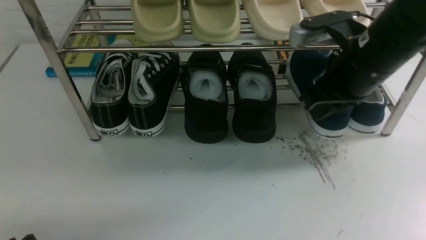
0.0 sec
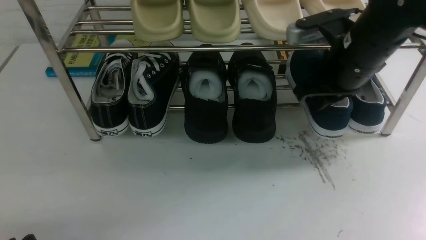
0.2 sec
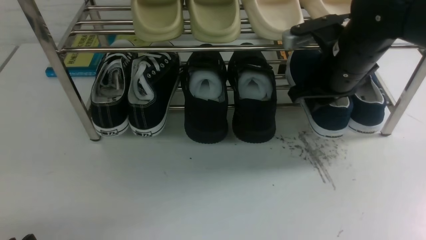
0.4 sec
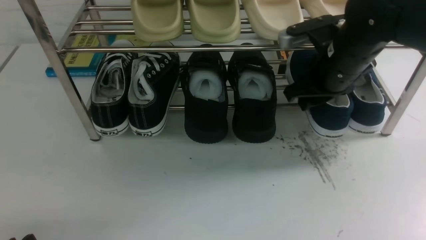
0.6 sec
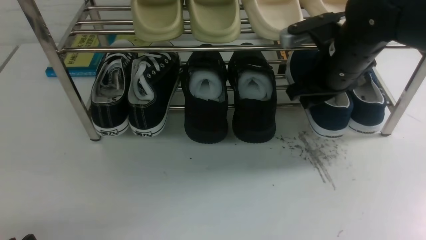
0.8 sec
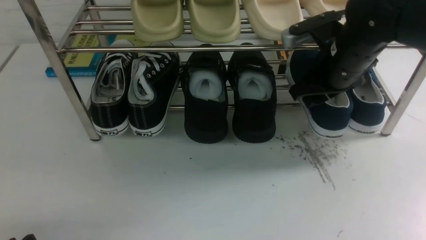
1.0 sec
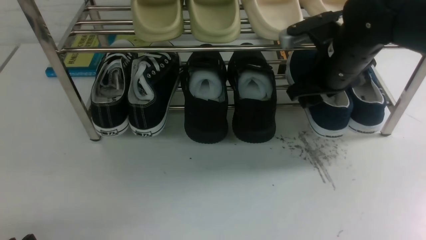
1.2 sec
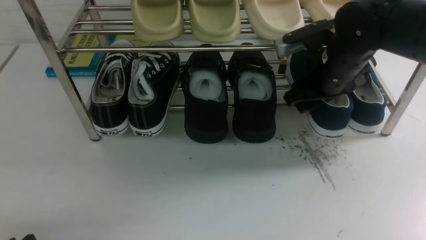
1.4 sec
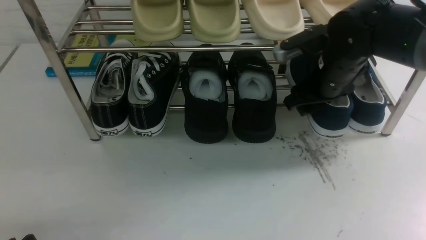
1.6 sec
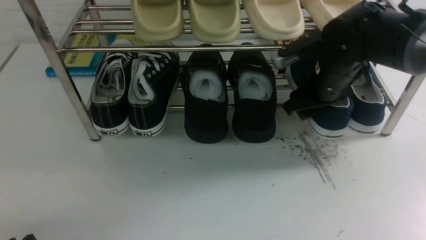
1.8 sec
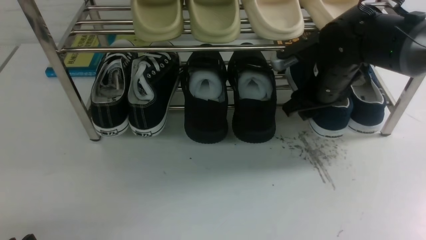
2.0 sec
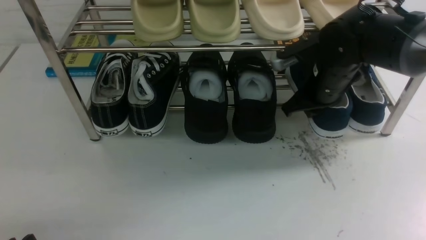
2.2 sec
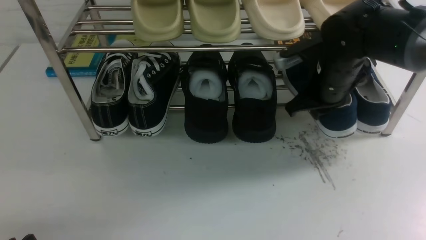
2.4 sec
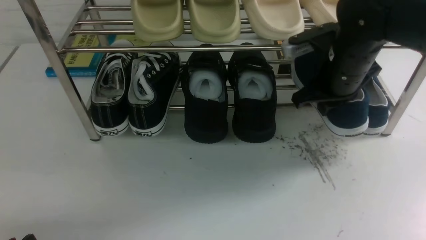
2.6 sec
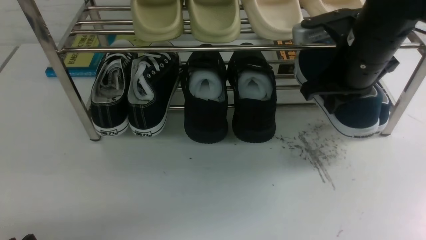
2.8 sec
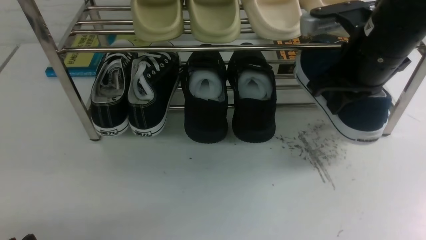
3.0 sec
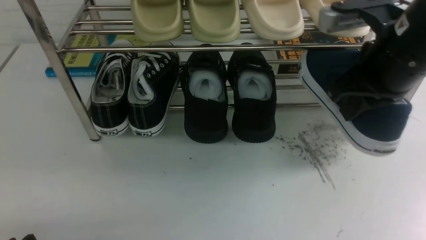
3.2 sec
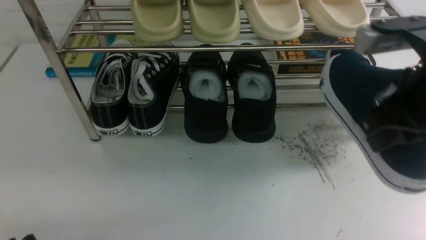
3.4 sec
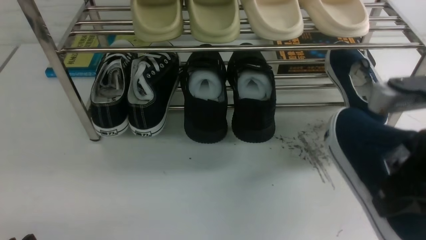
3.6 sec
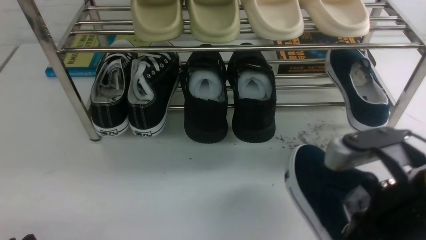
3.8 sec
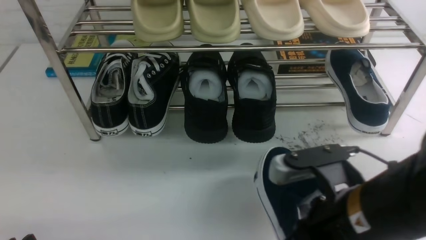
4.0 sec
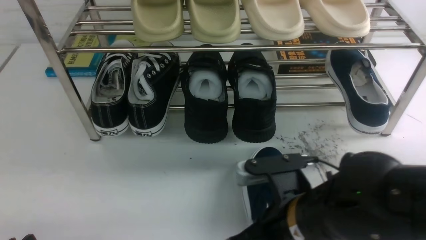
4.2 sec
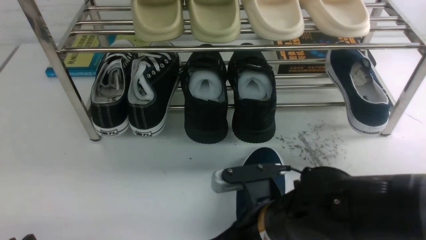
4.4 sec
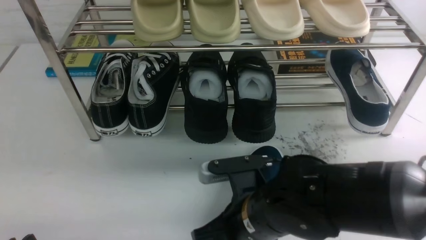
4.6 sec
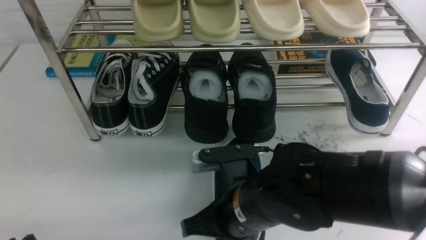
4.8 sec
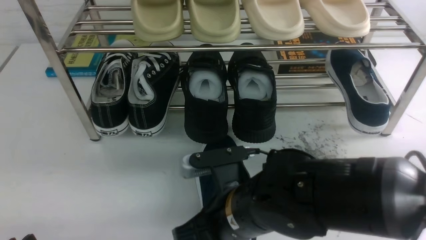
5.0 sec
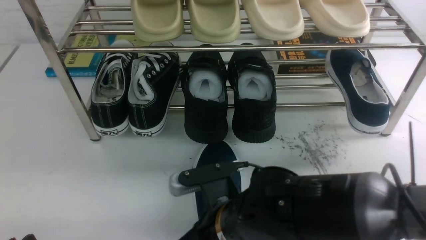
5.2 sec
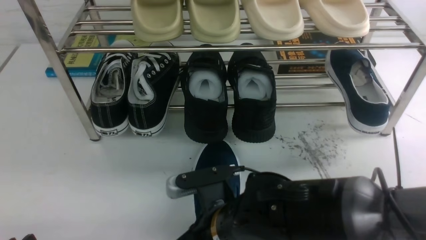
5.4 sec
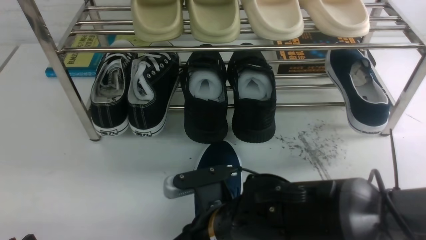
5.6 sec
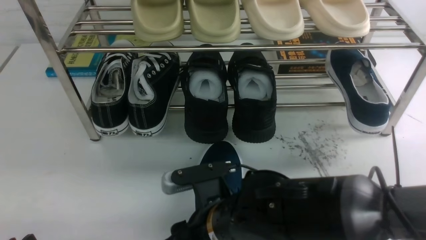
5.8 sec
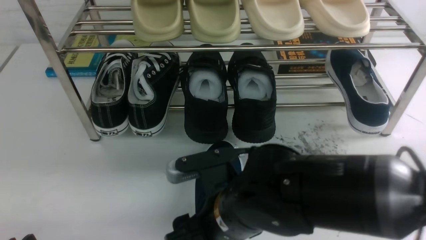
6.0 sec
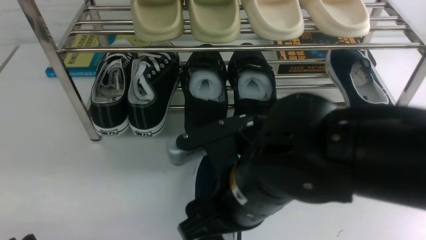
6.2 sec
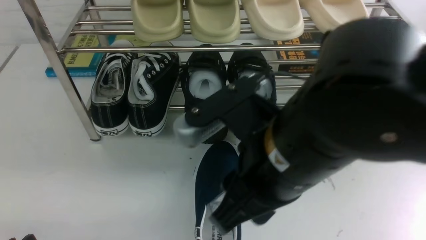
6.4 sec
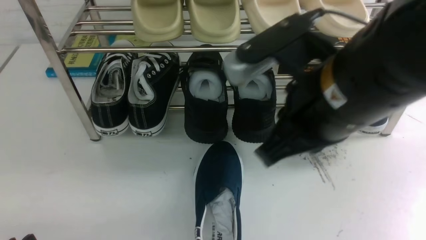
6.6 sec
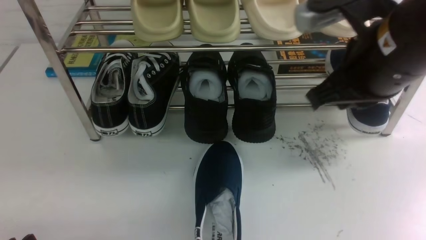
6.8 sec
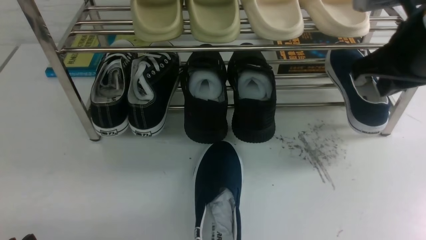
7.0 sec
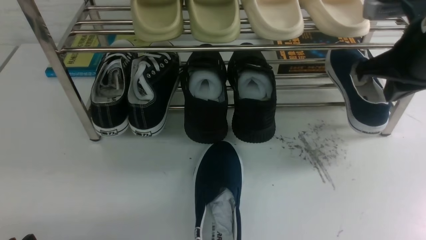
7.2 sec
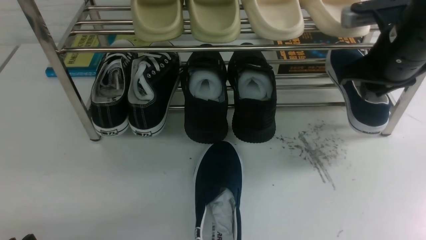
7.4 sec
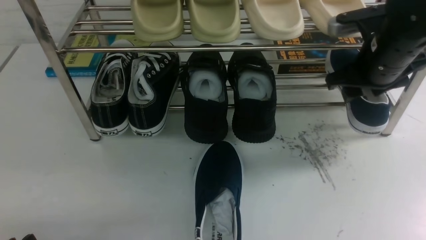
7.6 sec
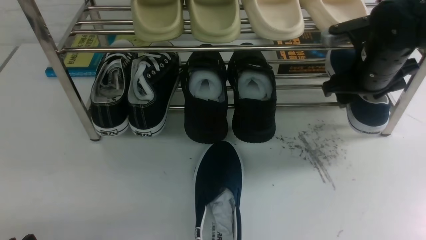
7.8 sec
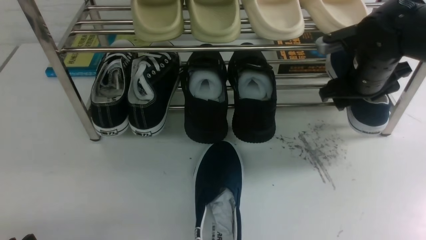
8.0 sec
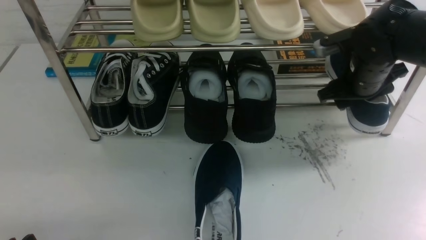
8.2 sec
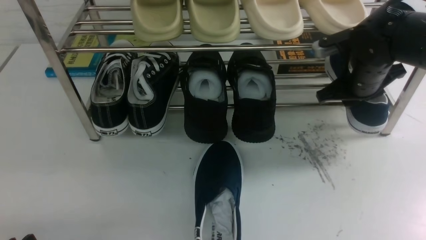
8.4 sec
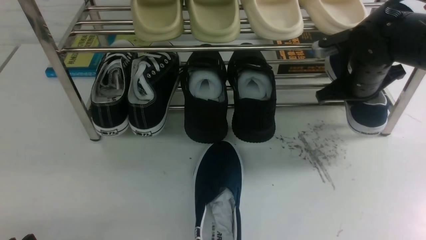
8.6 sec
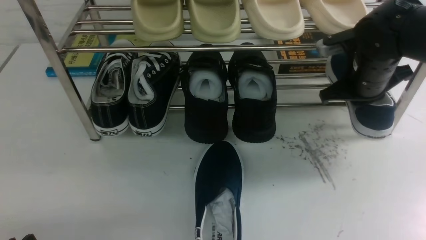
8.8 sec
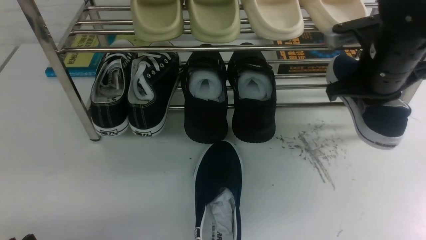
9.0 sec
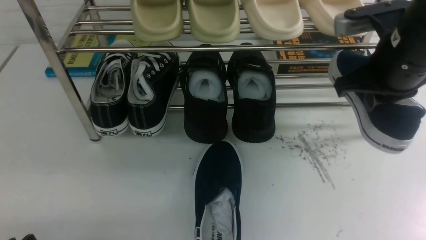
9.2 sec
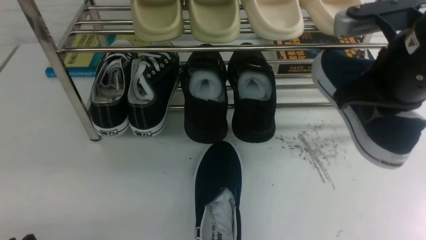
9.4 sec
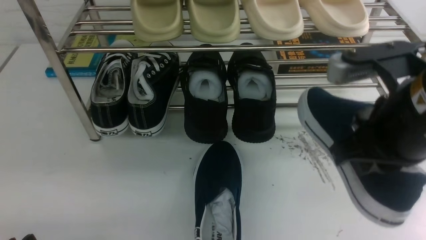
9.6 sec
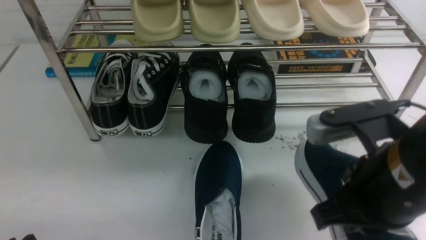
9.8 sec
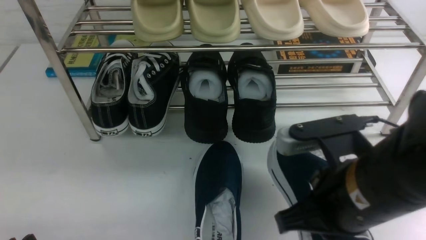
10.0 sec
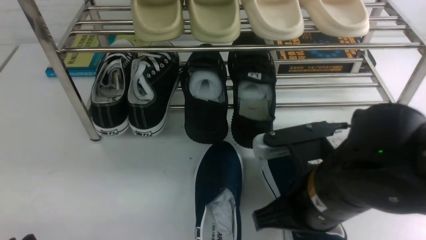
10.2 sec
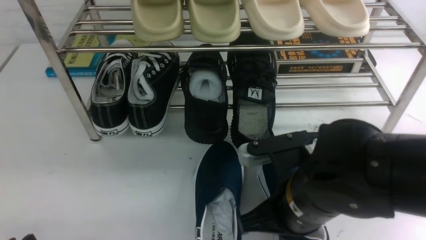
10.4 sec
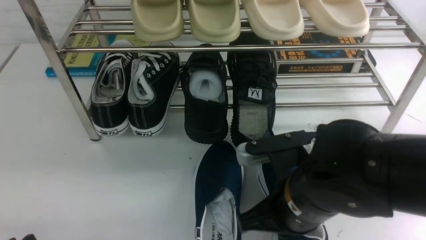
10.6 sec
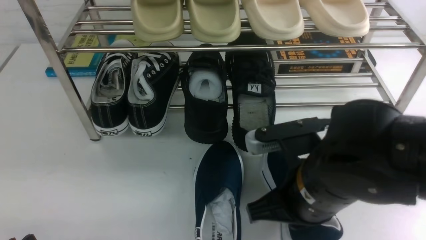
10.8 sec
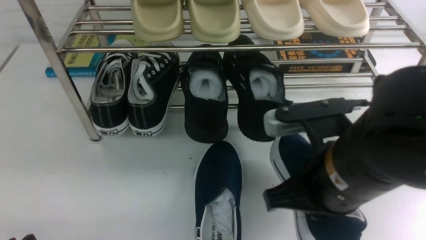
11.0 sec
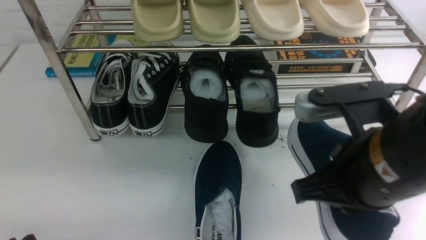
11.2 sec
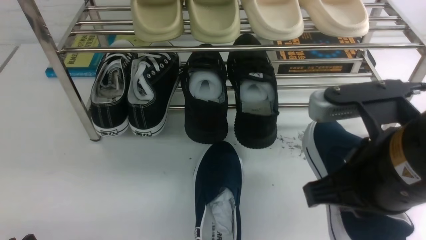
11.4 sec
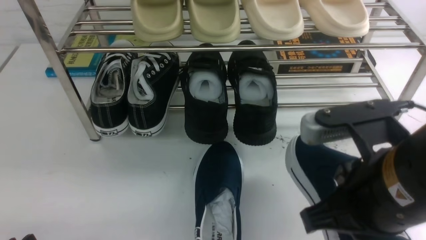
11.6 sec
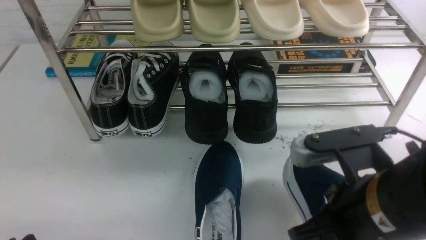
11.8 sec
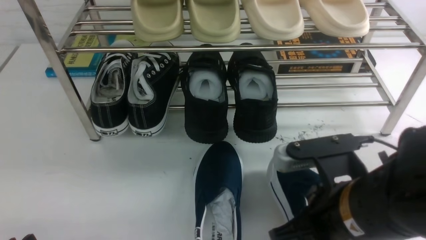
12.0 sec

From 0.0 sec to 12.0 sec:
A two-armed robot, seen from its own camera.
Step, from 0.0 sec to 2.8 sec: use the right arm to clamp a shoe on the right side of the shoe rack.
Step, from 3.0 sec to 6.0 sec: use the right arm to take out the clamped shoe from the shoe rack and put it down.
Step, from 6.2 sec to 9.0 sec: use the right arm to clamp a shoe on the right side of the shoe rack.
From 0.0 sec to 1.6 sec: The right gripper shifts approximately 10 cm forward and downward, and opens its fingers.
From 1.6 sec to 3.0 sec: The right gripper heads upward and backward, covering about 10 cm, and closes.
From 3.0 sec to 4.4 sec: The right gripper heads downward, to the left and backward, covering some 25 cm.
From 4.4 sec to 6.0 sec: The right gripper shifts by some 5 cm, and opens.
From 6.0 sec to 7.6 sec: The right gripper goes about 30 cm to the right and forward, and closes, then opens again.
From 7.6 sec to 9.0 sec: The right gripper closes its fingers.
From 9.0 sec to 10.4 sec: The right gripper moves backward, to the left and downward, roughly 20 cm.
From 10.4 sec to 12.0 sec: The right gripper moves about 10 cm upward and comes back.

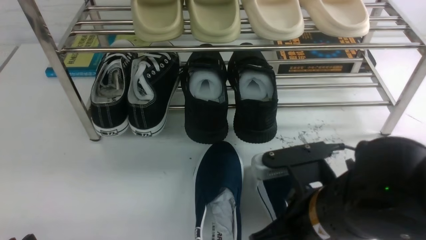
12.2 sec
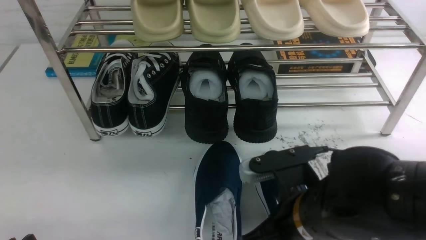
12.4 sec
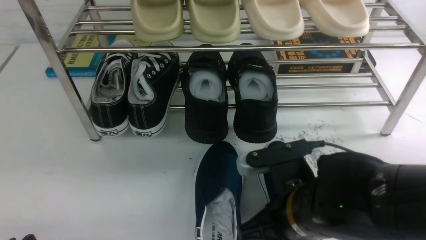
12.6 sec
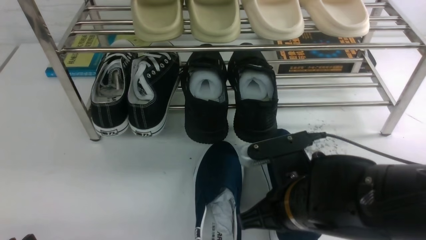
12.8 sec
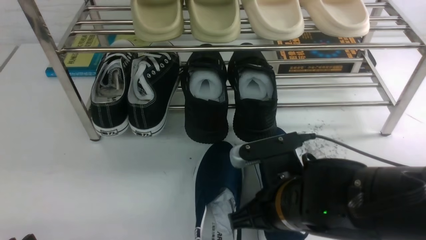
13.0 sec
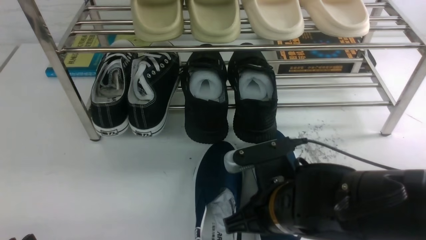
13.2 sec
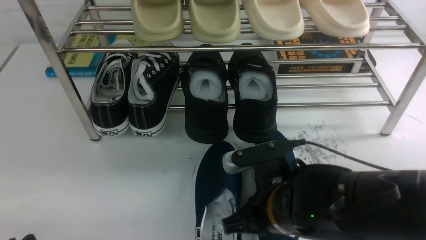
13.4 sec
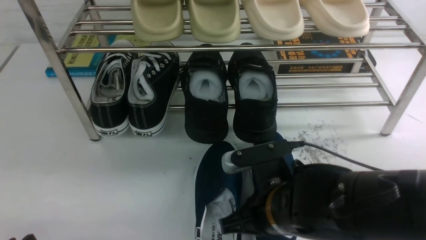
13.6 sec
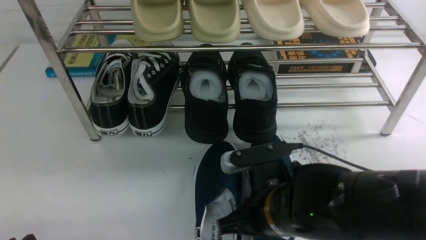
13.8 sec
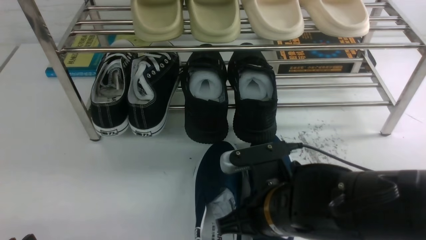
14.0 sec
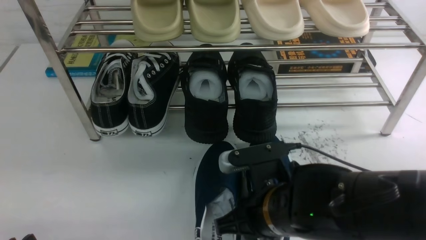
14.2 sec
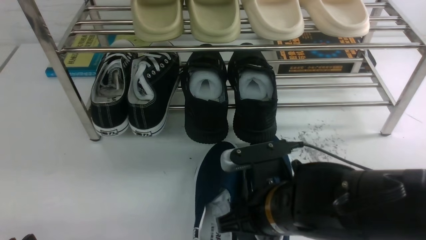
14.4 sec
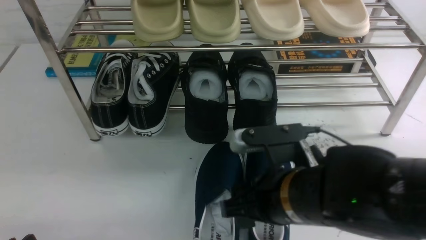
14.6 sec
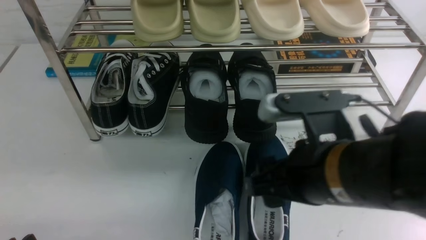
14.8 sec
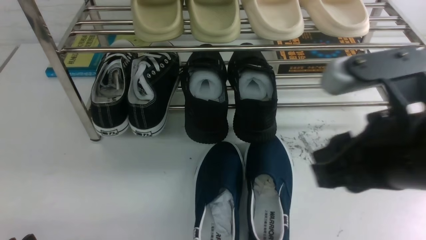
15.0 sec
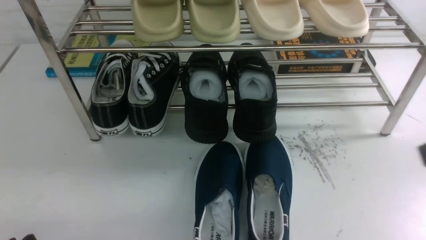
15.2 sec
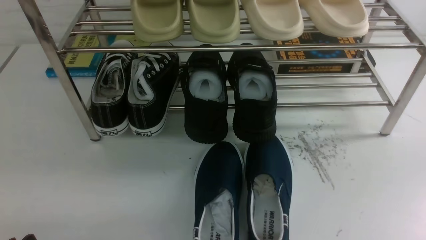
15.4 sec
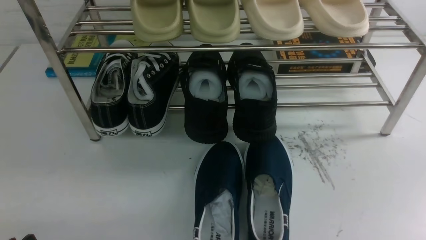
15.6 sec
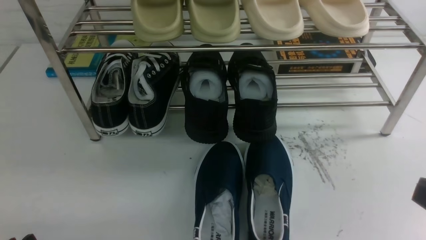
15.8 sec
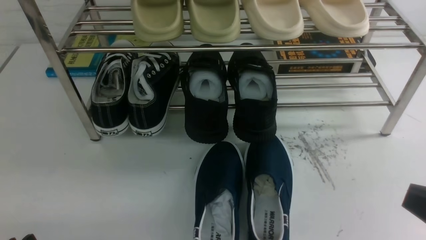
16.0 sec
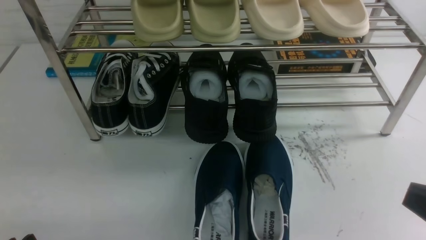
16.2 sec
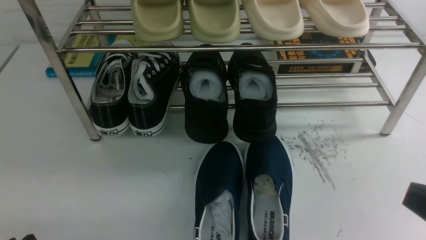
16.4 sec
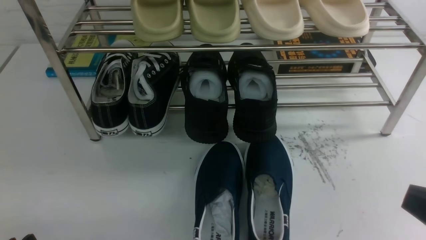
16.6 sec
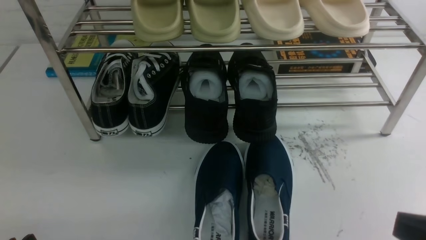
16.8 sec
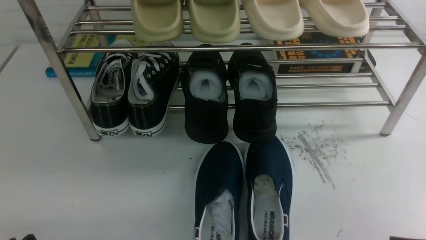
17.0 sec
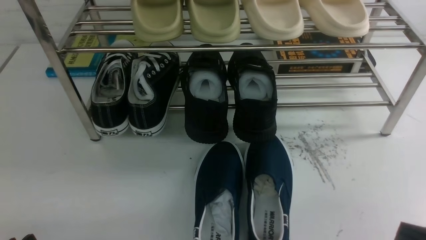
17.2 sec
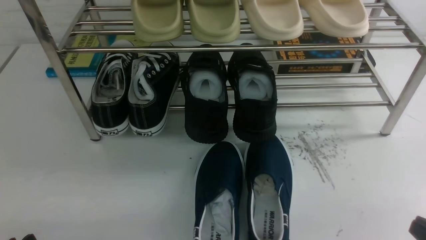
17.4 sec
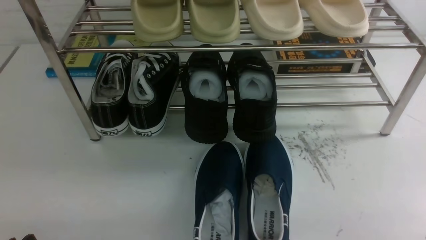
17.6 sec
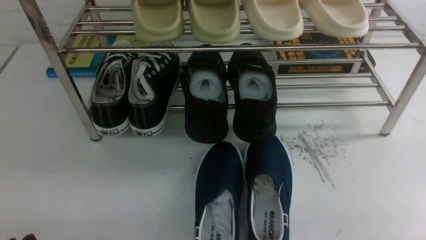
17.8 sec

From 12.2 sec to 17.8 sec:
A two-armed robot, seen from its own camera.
Step, from 12.2 sec to 14.8 sec: use the right arm to take out the clamped shoe from the shoe rack and put it down.
From 12.2 sec to 13.6 sec: The right gripper moves roughly 5 cm.
From 13.6 sec to 15.0 sec: The right gripper shifts about 20 cm upward and to the right, and opens up.
From 15.0 sec to 16.4 sec: The right gripper moves to the right, backward and downward, roughly 15 cm, and closes its fingers.
From 16.4 sec to 17.8 sec: The right gripper is displaced downward and to the right by some 15 cm.
